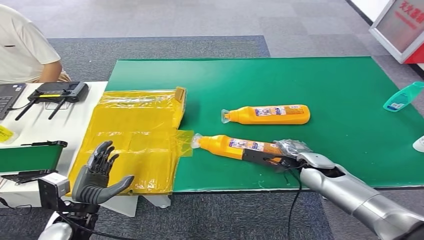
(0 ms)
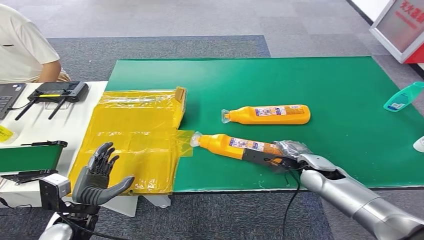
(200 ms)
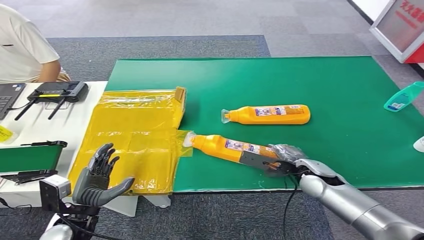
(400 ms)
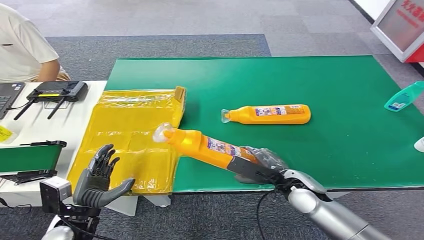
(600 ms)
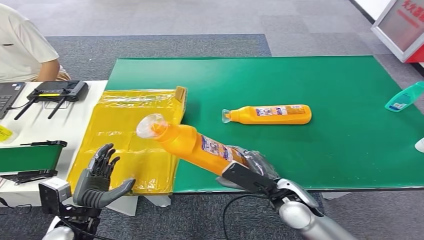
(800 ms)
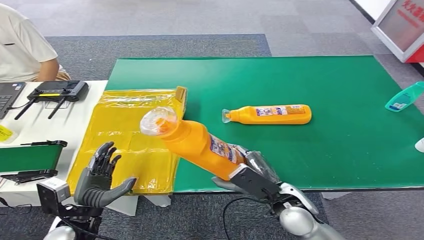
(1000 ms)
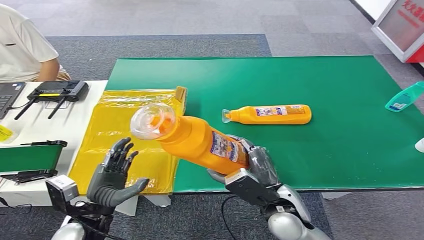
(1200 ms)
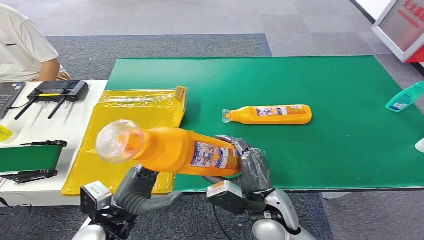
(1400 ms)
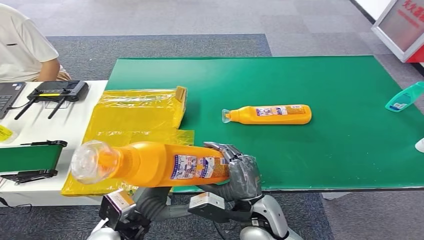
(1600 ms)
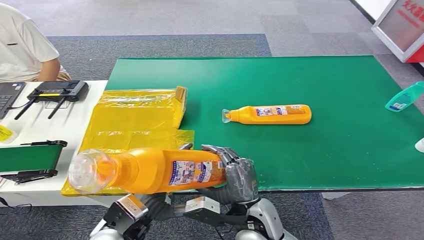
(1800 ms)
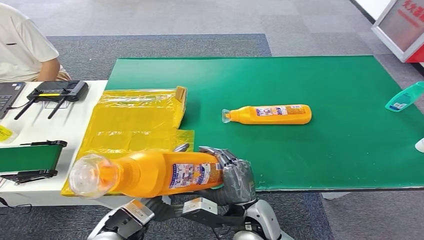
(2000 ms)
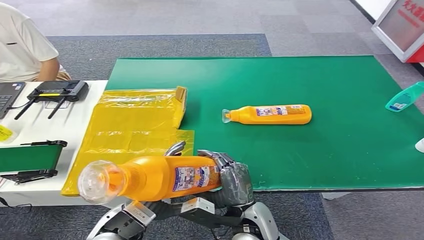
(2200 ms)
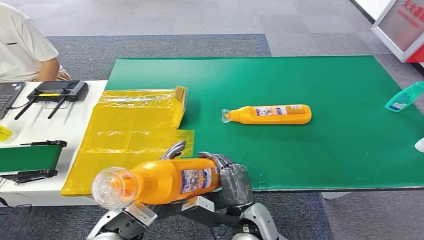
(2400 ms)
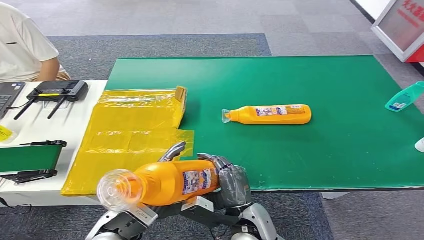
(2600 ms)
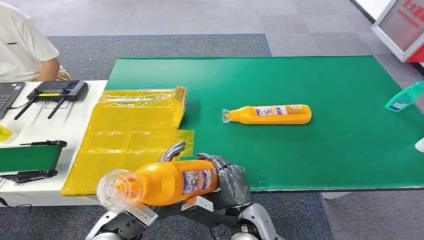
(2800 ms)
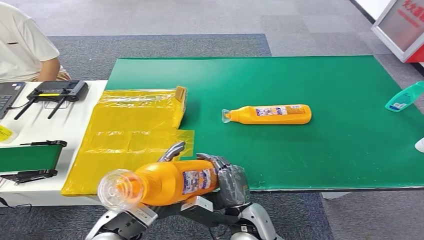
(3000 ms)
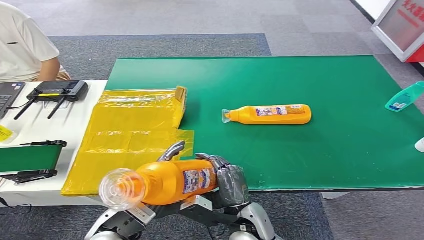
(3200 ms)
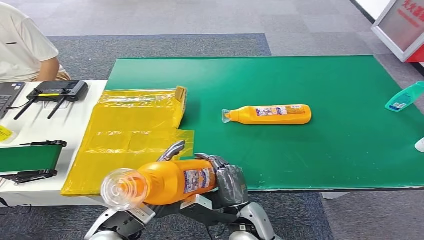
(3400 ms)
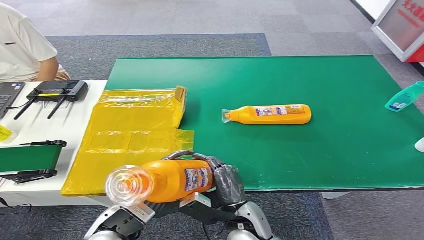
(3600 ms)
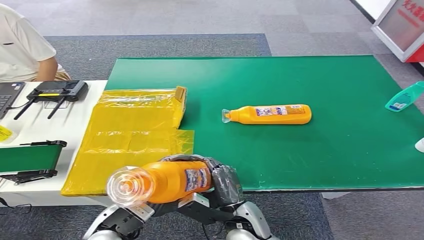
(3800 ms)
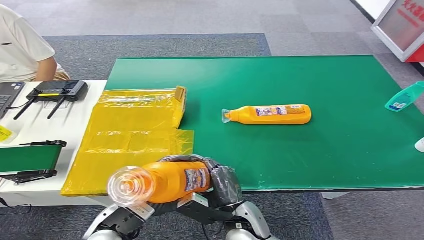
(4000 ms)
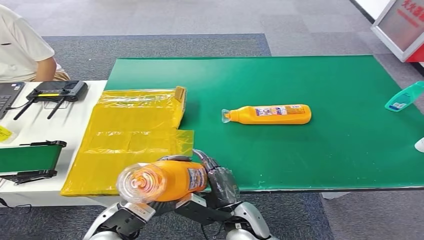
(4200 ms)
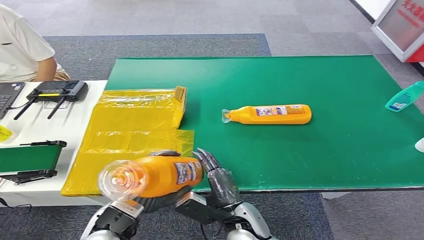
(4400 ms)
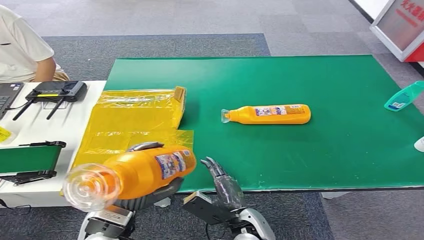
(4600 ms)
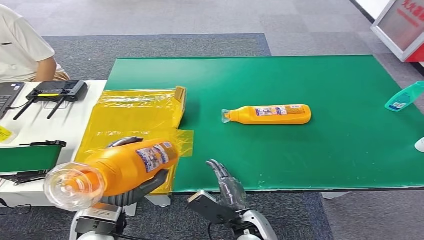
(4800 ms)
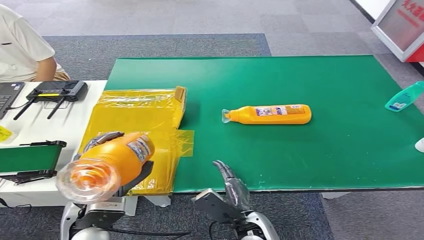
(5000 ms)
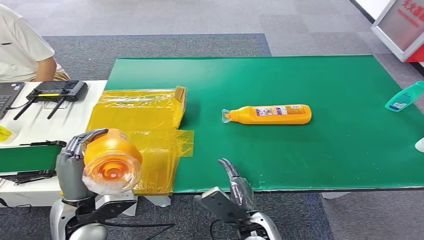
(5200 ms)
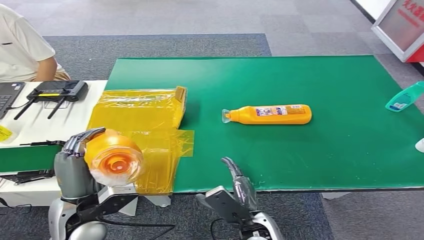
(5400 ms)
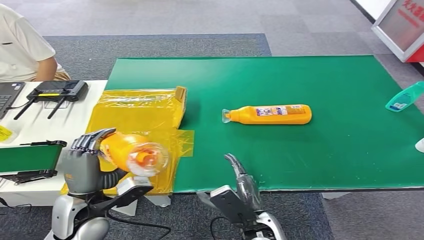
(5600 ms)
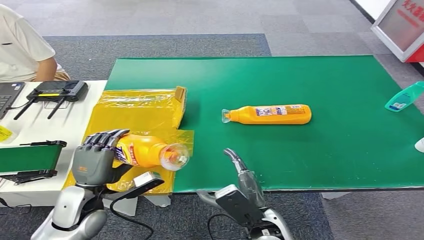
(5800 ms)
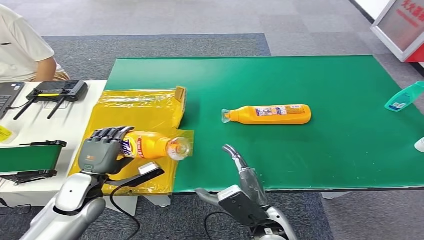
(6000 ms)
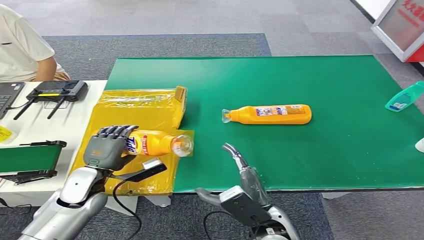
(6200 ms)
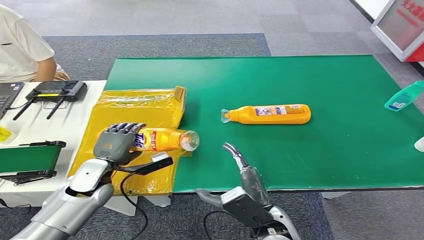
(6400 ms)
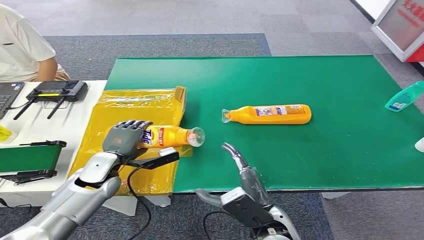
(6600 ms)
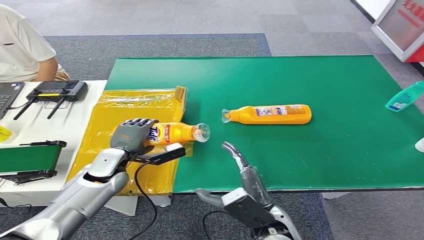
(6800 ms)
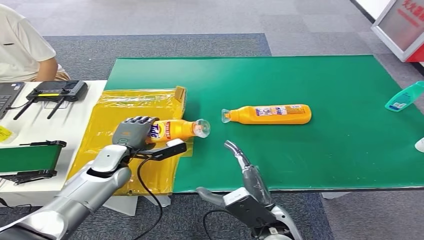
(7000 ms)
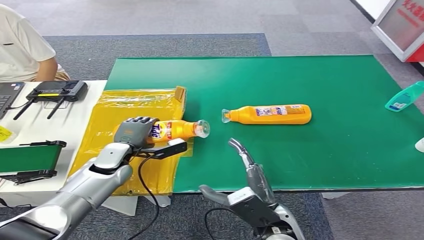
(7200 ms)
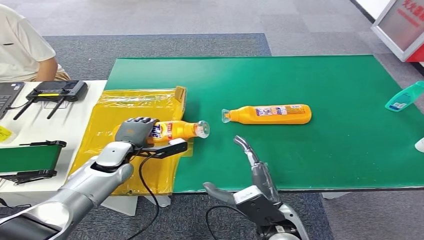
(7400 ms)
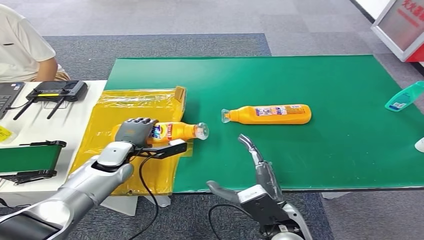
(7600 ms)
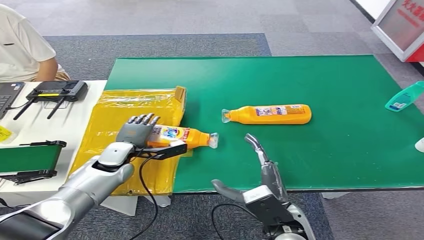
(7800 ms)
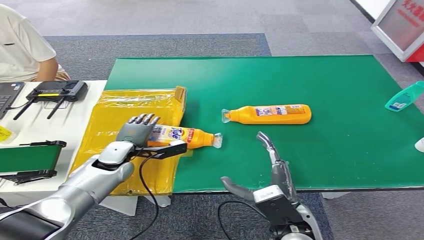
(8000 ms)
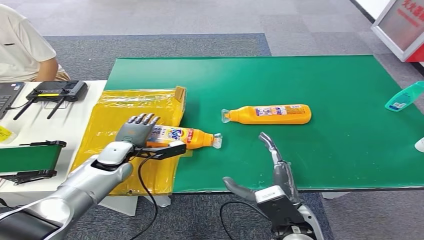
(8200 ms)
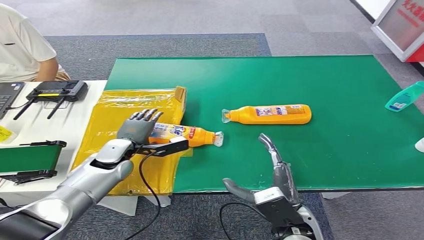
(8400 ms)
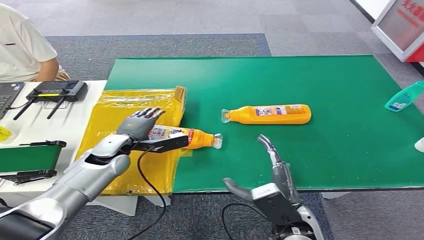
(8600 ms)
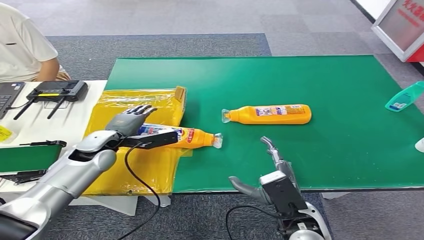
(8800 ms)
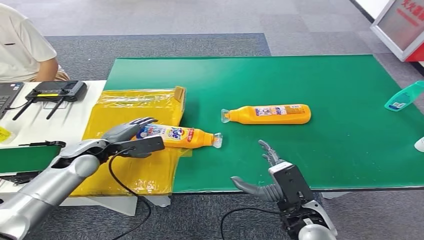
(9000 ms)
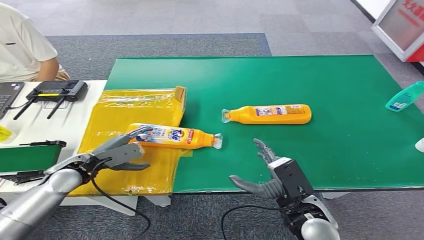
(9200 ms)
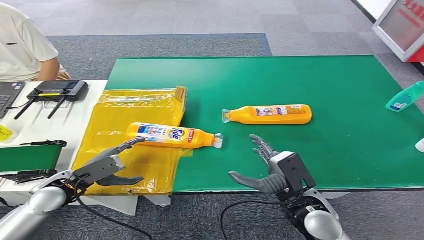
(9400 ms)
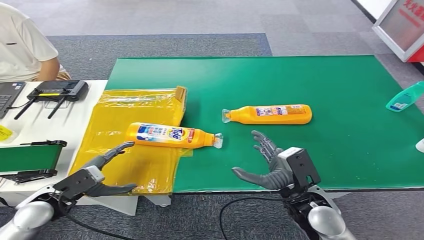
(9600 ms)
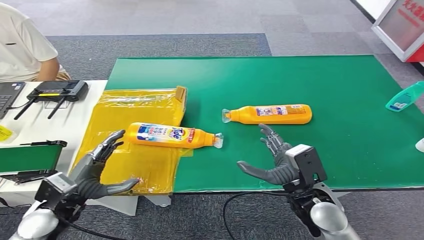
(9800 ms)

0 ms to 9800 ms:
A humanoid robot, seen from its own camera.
Step, 0 ms to 2600 ms: Pick up the bottle from the table.
Step, 2800 ms to 9800 ms: Turn the bottle to the front side.
1400 ms to 2800 ms: The right hand heads downward, covering roughly 5 cm.
2800 ms to 4200 ms: The hands move only a little.
4200 ms to 5600 ms: The left hand moves to the left, about 5 cm.
5600 ms to 7000 ms: The left hand moves forward, some 15 cm; the right hand ends up some 5 cm from where it was.
7000 ms to 8400 ms: There are only small adjustments of the hands.
8400 ms to 9800 ms: The left hand goes roughly 20 cm backward and to the left. Meanwhile the right hand shifts about 5 cm forward.

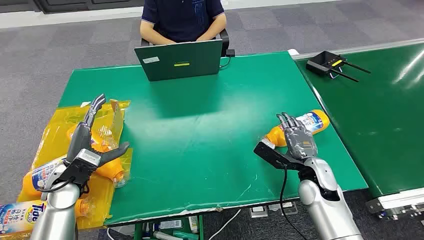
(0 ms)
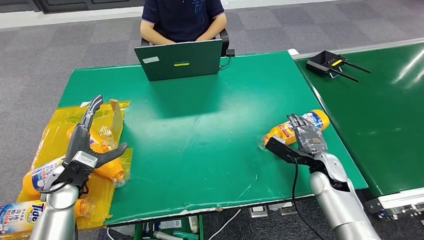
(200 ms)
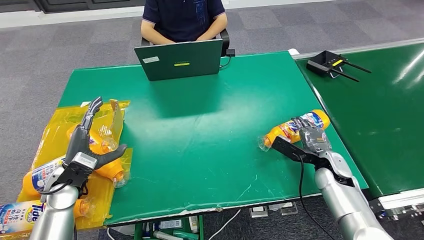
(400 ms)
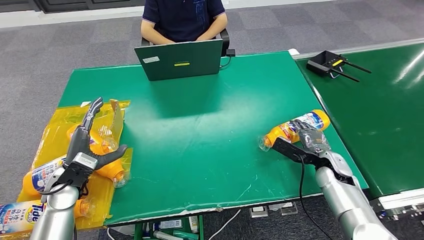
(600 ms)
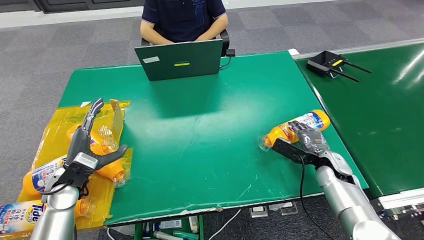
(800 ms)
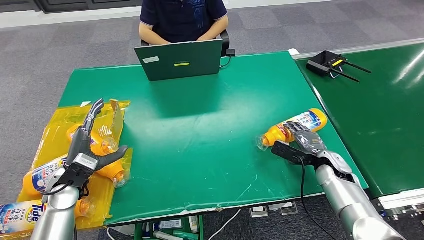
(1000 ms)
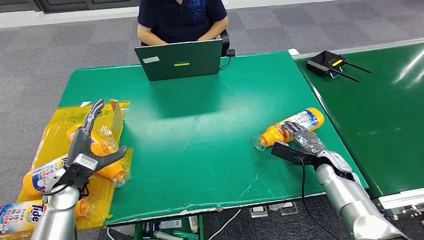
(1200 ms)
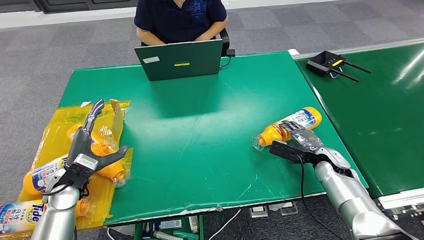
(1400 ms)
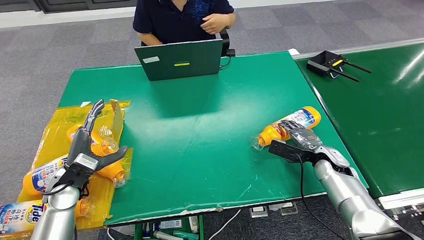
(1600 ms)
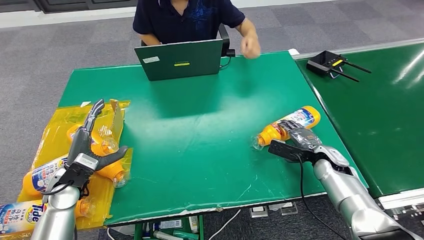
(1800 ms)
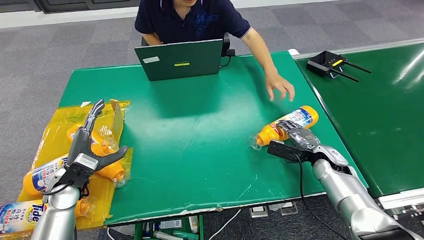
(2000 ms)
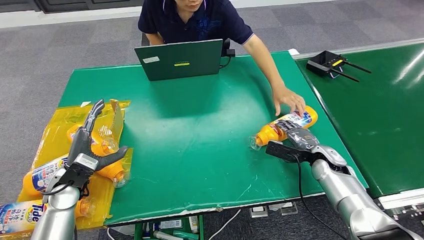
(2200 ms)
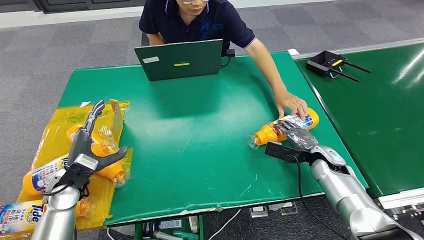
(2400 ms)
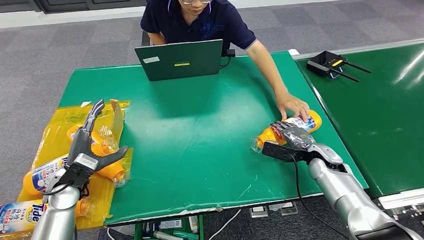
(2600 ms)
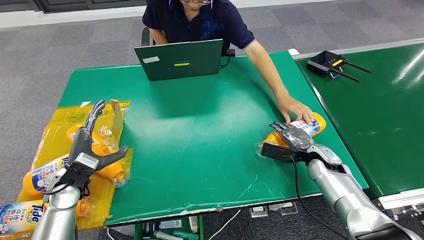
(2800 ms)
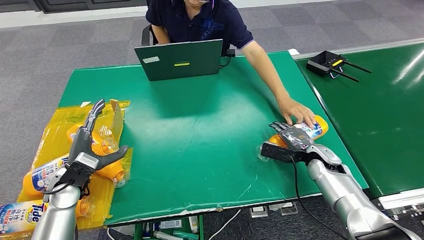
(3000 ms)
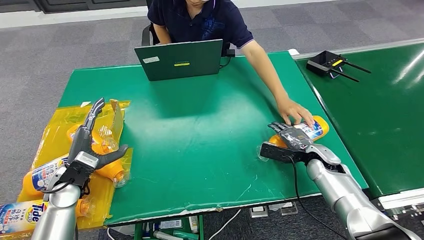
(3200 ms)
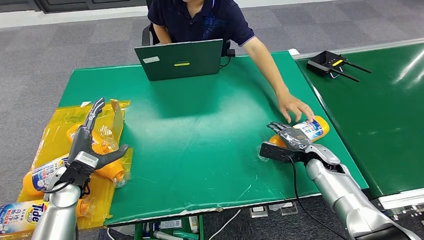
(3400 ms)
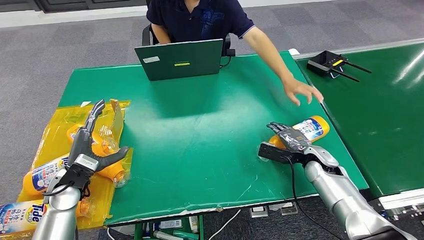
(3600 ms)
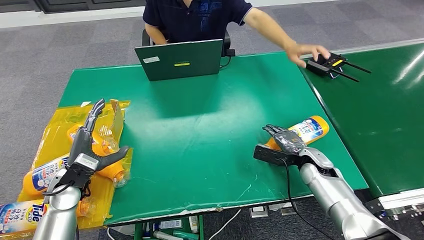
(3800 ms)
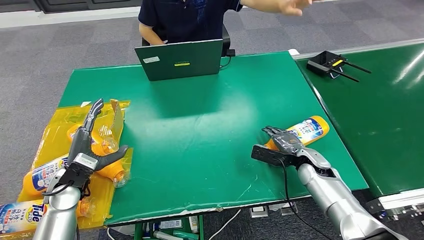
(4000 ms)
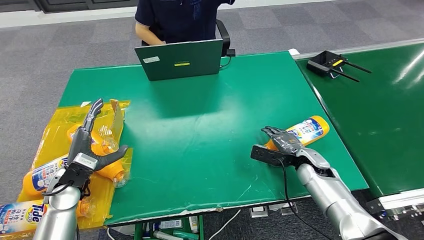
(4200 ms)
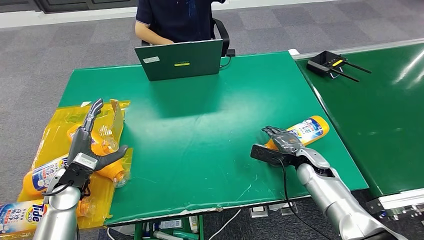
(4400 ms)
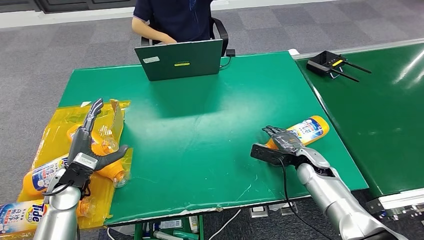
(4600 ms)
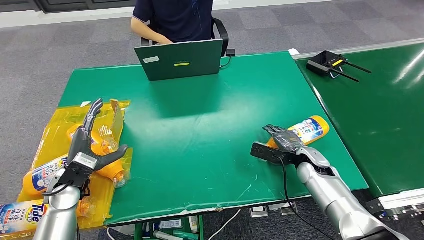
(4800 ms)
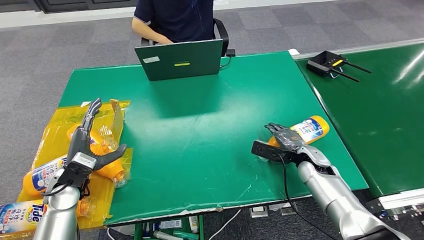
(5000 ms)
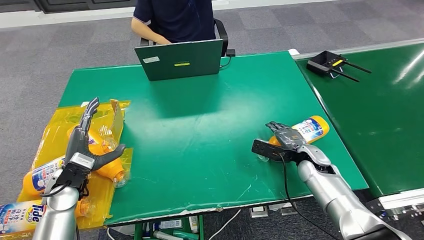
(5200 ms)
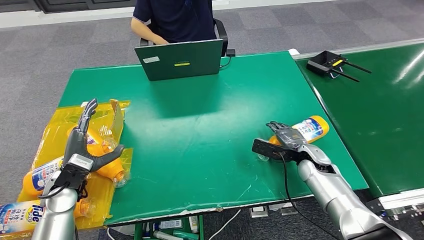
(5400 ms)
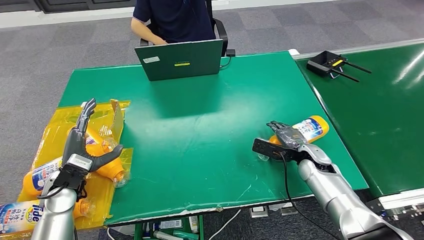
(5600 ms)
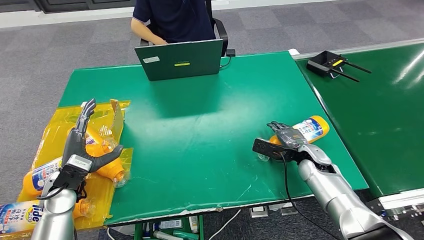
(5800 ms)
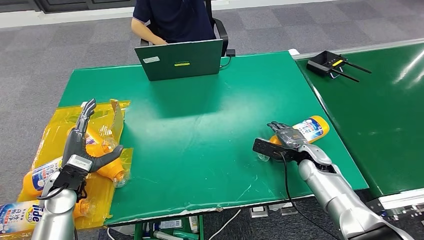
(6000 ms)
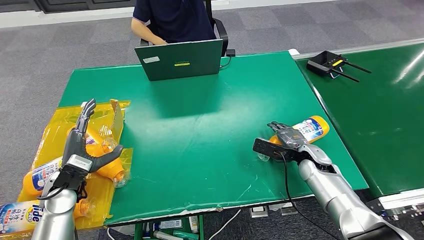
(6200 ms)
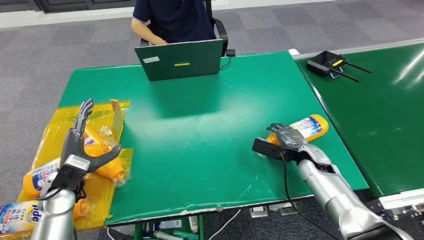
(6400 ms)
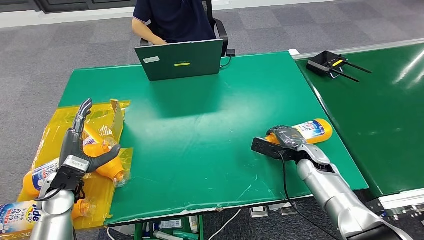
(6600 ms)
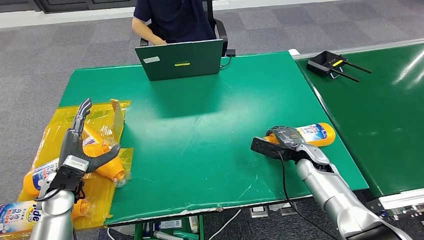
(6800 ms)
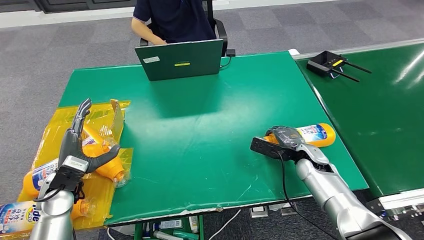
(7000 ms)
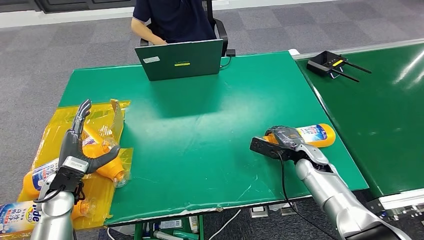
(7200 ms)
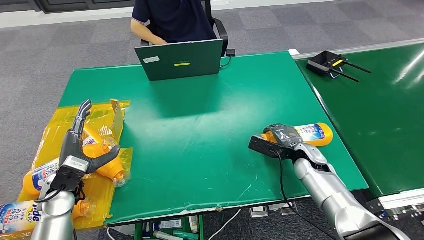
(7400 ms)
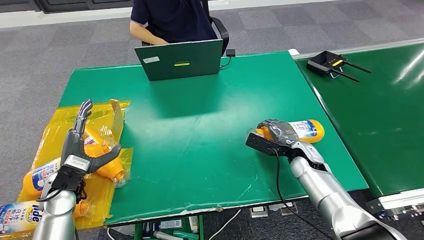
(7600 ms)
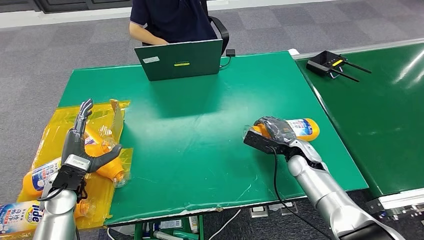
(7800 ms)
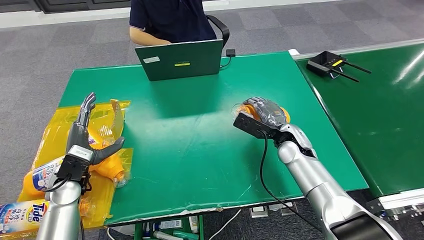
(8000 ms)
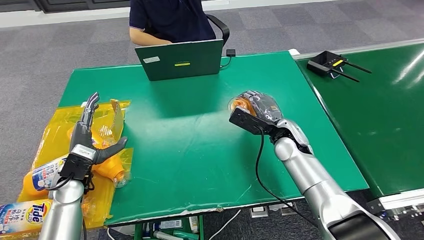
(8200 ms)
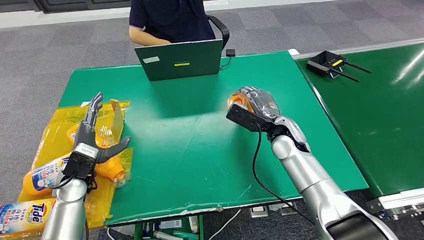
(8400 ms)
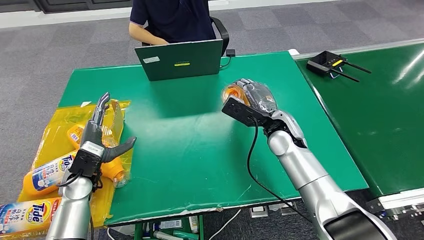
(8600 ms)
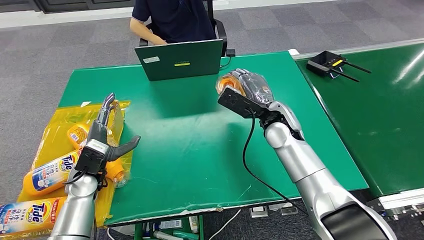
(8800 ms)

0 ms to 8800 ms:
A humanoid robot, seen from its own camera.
Step, 0 ms to 8600 ms: Pick up the bottle from the table.
1400 ms to 4400 ms: There are only small adjustments of the hands.
4400 ms to 5800 ms: Both hands stay put.
5800 ms to 7400 ms: Neither hand changes place.
7400 ms to 8800 ms: The left hand shifts by some 5 cm. Meanwhile the right hand is displaced upward and to the left by approximately 15 cm.
